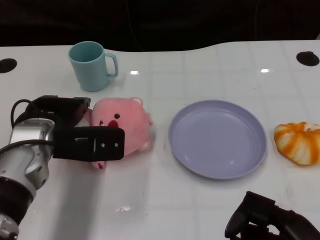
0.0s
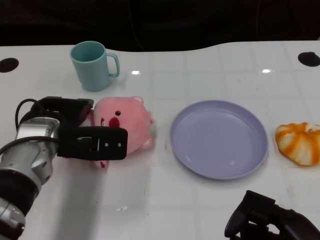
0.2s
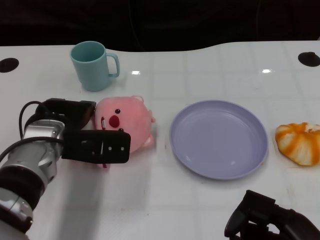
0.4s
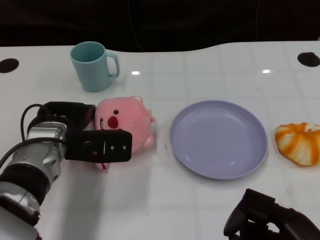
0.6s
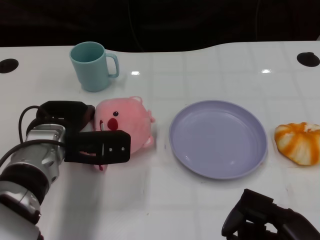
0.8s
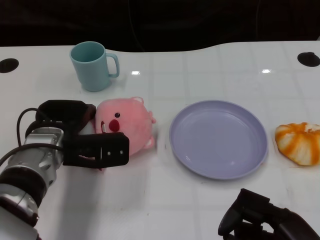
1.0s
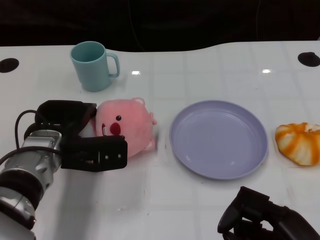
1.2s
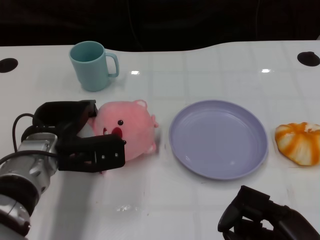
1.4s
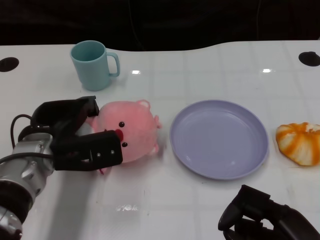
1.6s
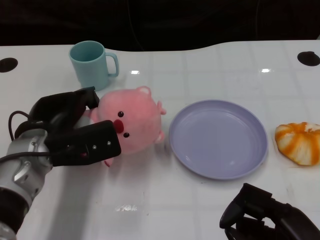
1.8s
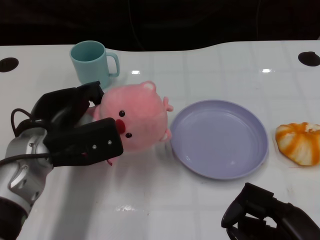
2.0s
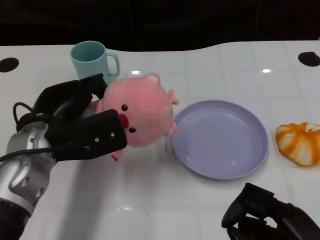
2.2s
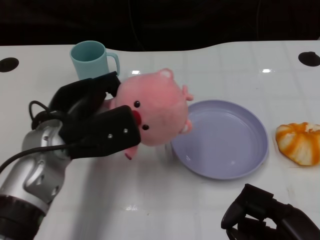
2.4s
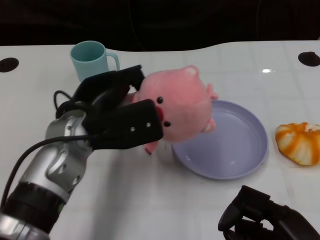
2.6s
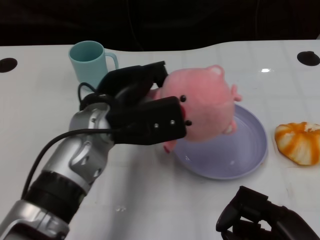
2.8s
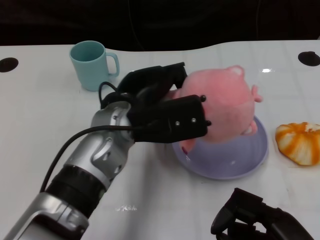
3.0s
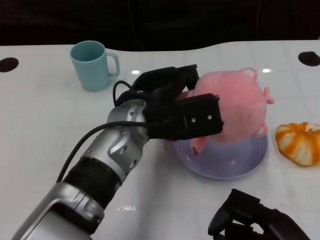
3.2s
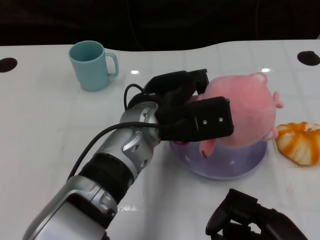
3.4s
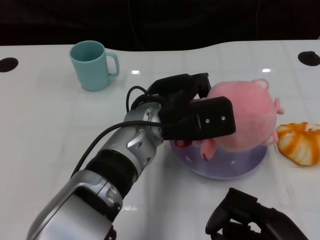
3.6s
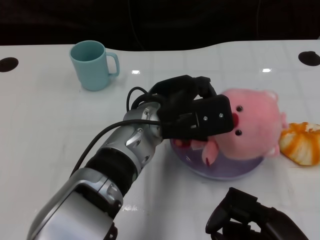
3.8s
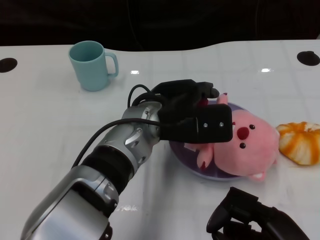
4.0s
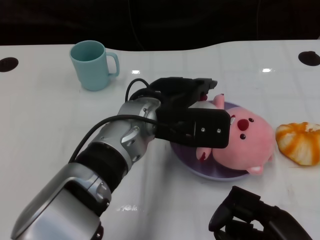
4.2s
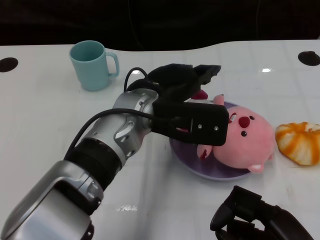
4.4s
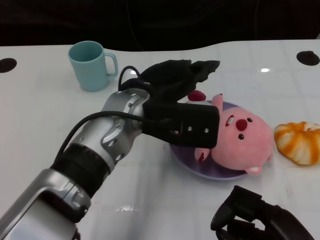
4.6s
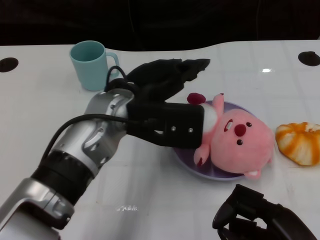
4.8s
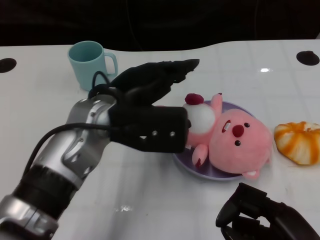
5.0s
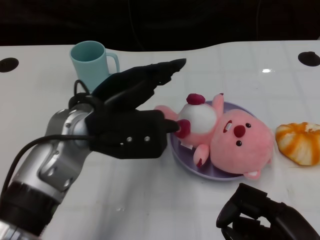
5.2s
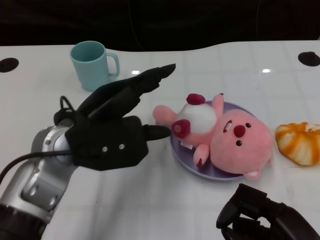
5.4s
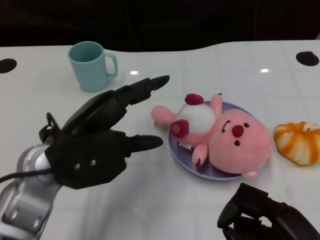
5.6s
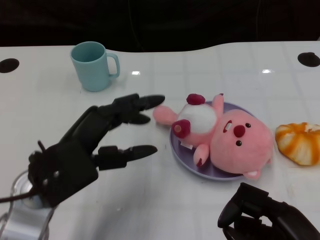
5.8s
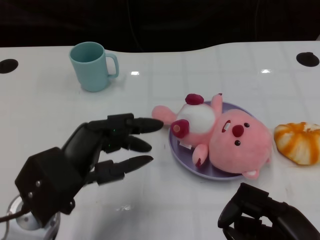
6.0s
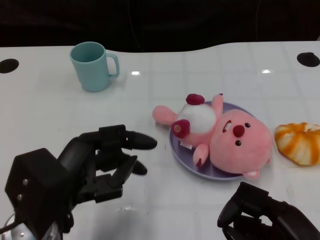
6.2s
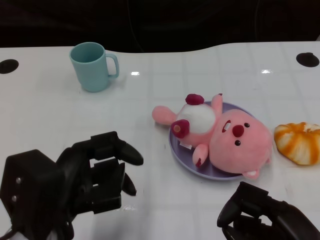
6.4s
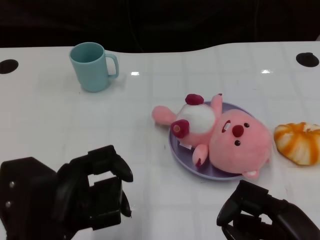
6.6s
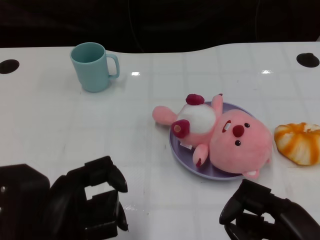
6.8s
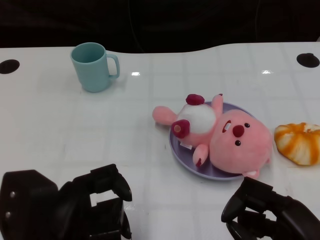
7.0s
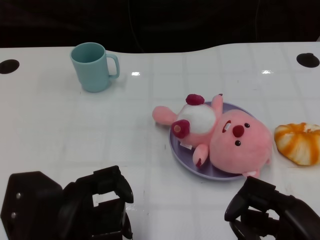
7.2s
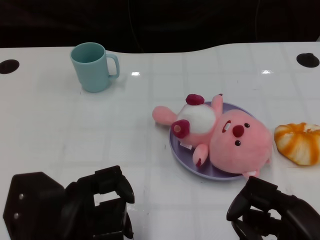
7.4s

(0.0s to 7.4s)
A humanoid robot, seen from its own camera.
Task of the whole recording: Pick up the doll on one side of the plate and place it into the plate.
Step, 2.0s - 4.4s: Place the pink doll into the plate with the left gripper.
0.0s - 1.4s: The hands move only a little.
1.4s - 3.0s: The left hand heads to the right and upward, covering roughly 15 cm.
4.4s - 6.0s: The left hand shifts some 20 cm to the left and backward.
6.0s - 7.4s: The left hand is displaced backward by about 5 cm.

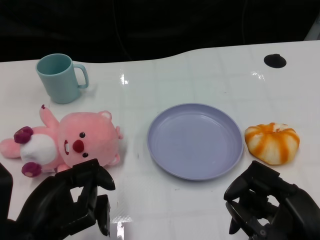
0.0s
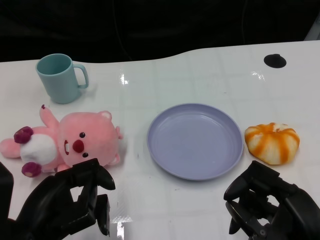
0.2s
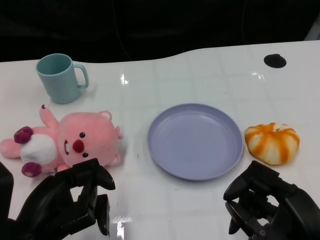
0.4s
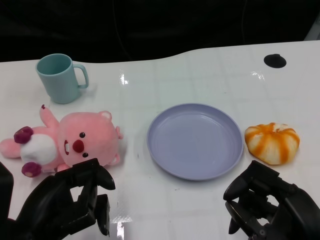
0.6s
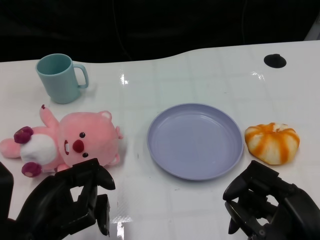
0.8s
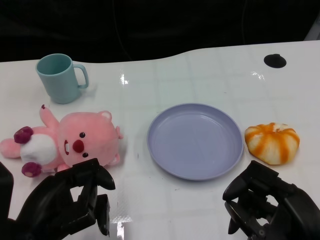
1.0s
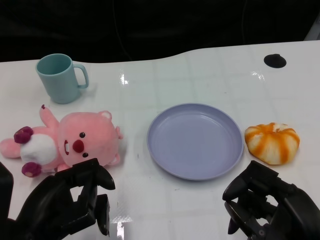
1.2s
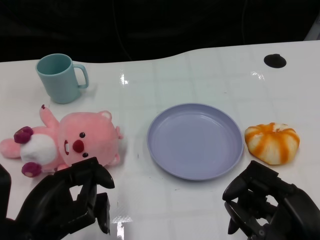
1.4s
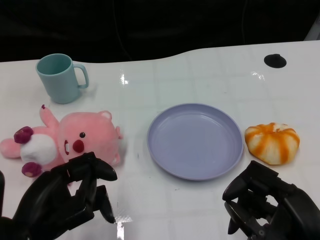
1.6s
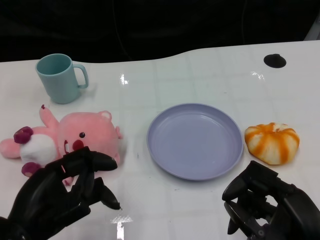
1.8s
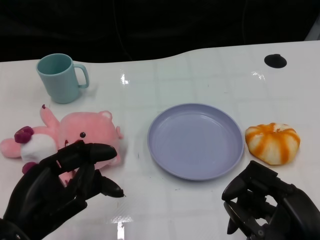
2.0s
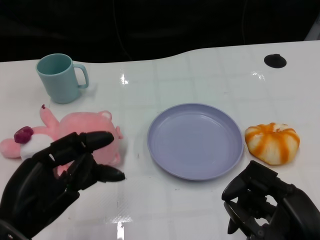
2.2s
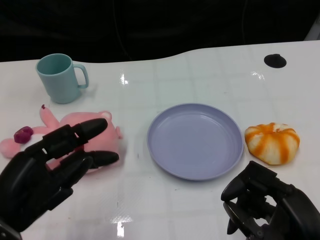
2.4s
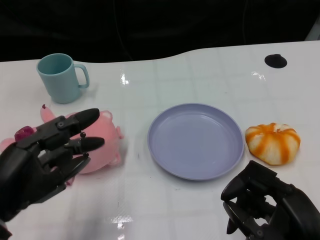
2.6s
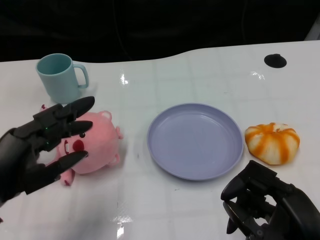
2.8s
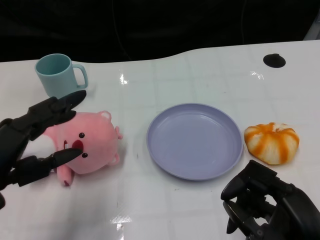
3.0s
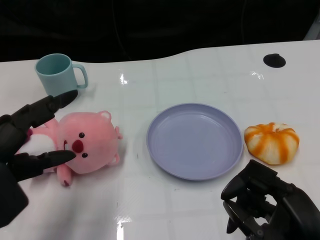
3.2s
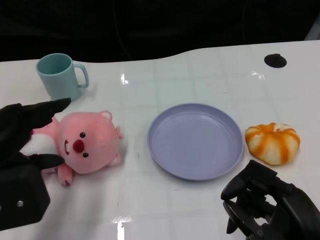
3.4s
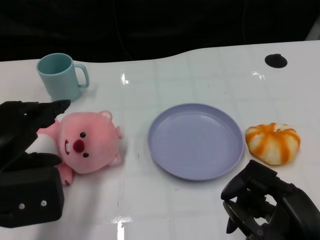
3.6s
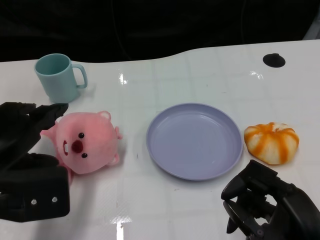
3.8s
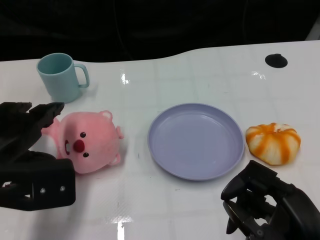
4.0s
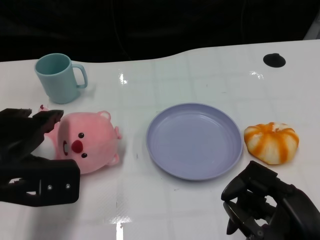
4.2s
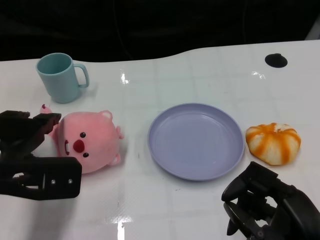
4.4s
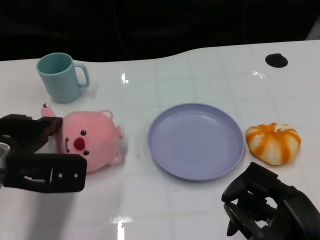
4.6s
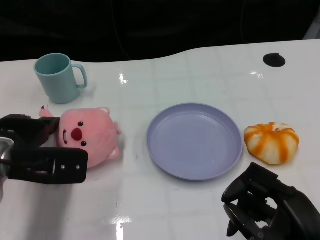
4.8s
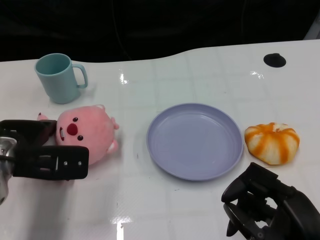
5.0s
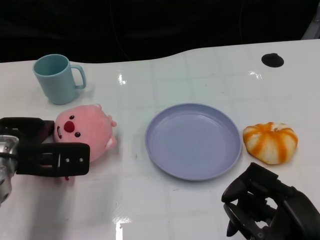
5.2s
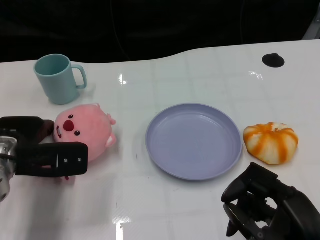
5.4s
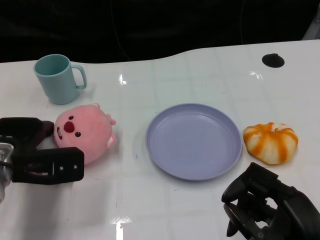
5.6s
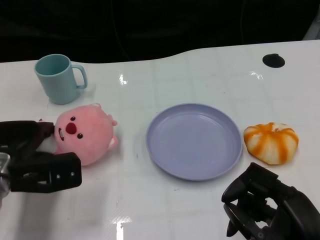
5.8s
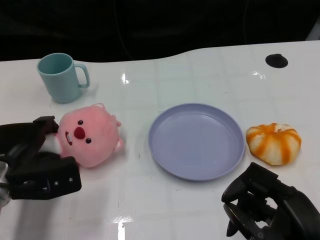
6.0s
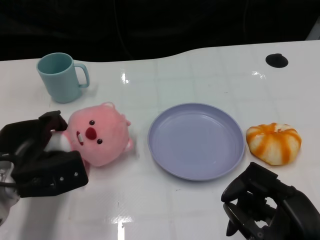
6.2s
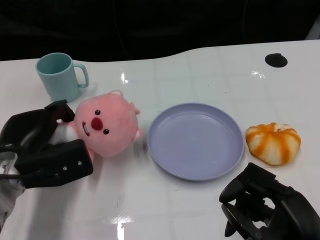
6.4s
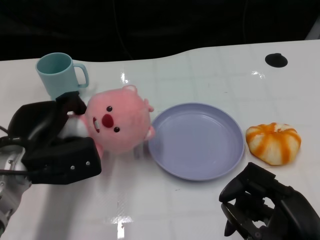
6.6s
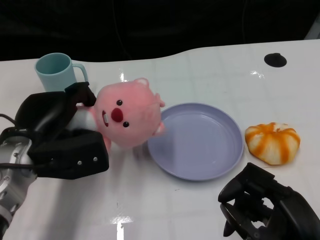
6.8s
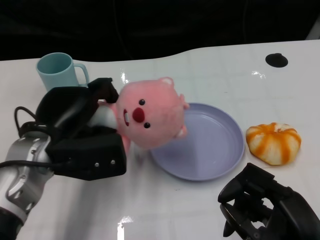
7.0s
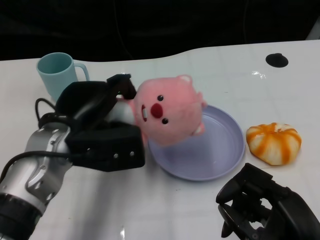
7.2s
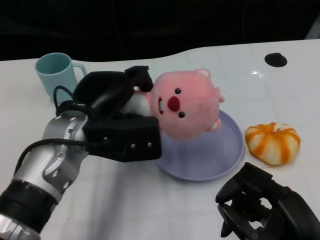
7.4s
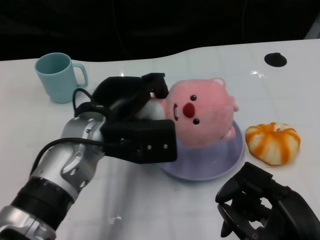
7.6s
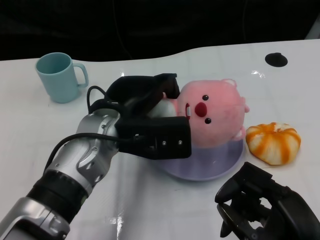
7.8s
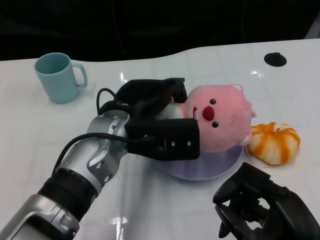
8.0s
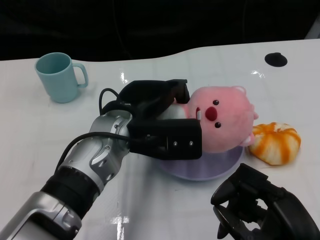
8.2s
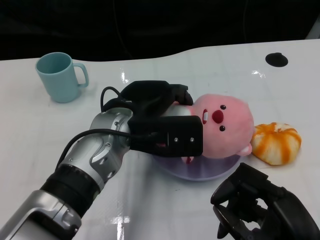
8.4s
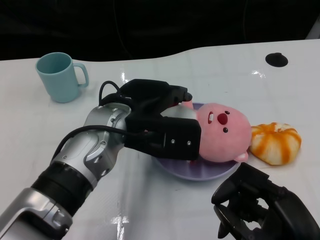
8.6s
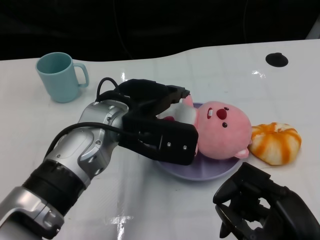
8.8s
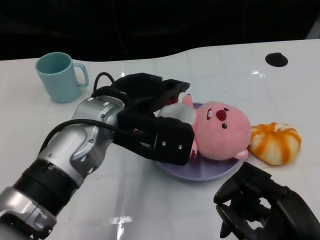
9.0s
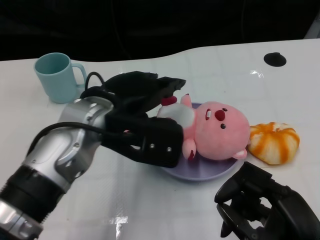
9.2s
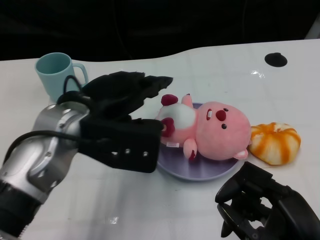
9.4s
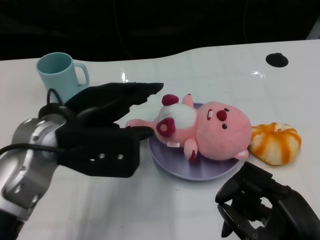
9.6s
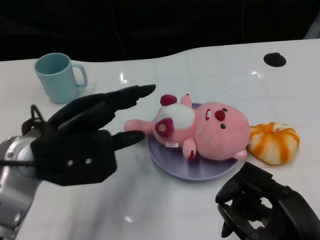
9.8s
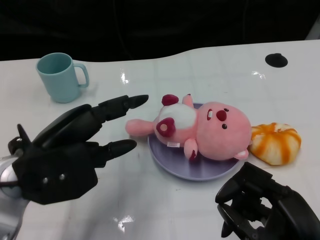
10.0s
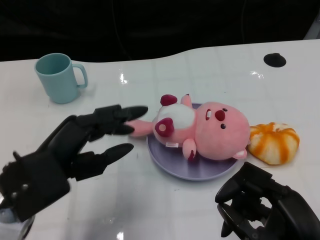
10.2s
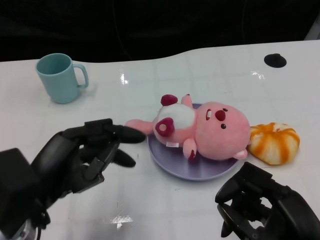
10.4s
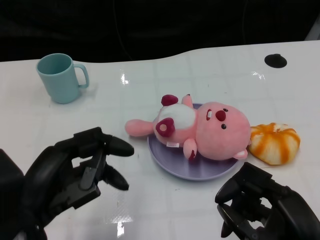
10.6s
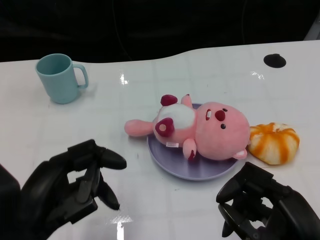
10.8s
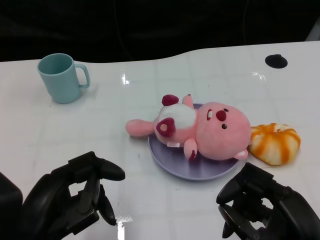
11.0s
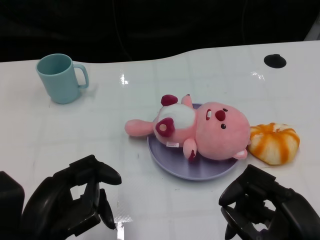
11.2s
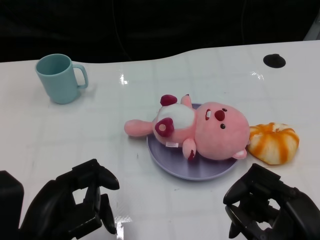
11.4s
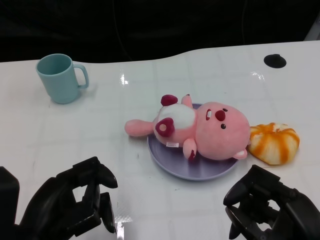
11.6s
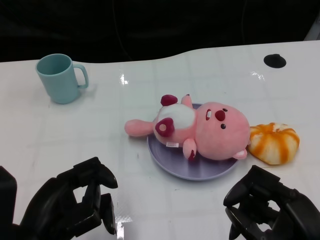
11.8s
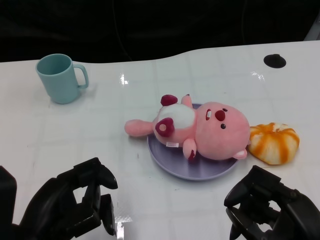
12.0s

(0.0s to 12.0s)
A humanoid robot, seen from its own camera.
Task of the whole recording: Pick up the doll on one side of the plate and place it into the plate.
Step, 1.4s - 6.6s: Grasp the pink doll with the left gripper.
Step, 6.8s - 9.0s: Place the pink doll into the plate with the left gripper.
1.6s - 3.0s: The left hand goes roughly 5 cm upward.
3.0s - 4.4s: The left hand goes about 5 cm forward.
4.4s - 6.0s: The left hand goes approximately 10 cm downward.
6.0s - 7.6s: The left hand shifts about 15 cm to the right and upward.
9.0s - 10.4s: The left hand shifts about 15 cm to the left and backward.

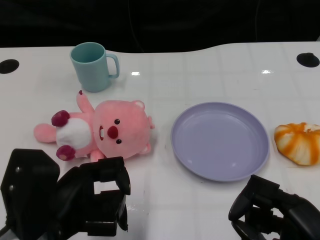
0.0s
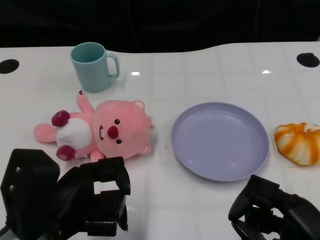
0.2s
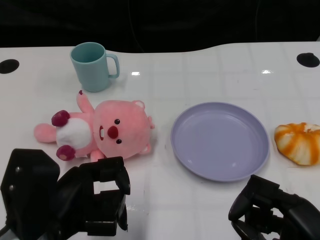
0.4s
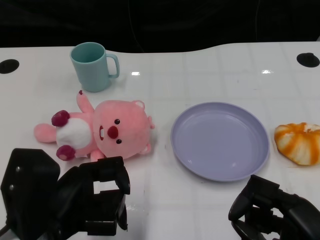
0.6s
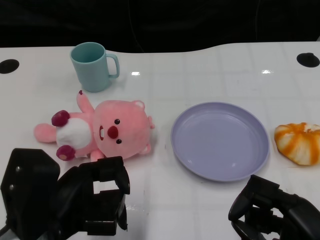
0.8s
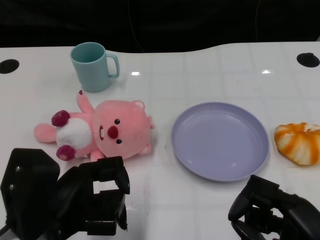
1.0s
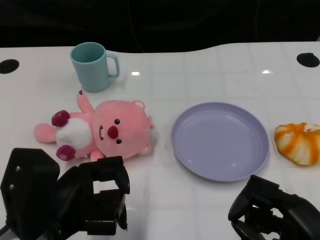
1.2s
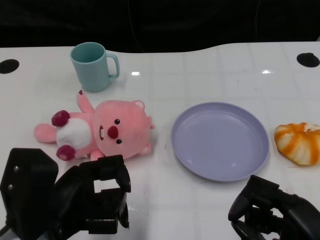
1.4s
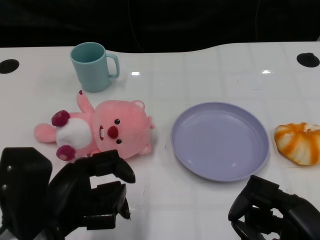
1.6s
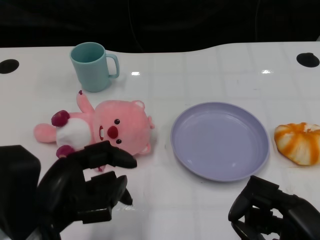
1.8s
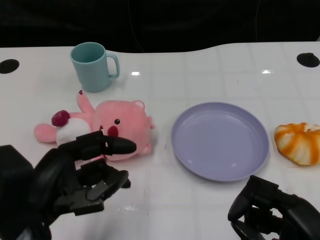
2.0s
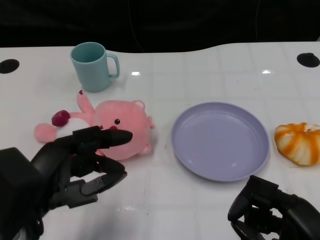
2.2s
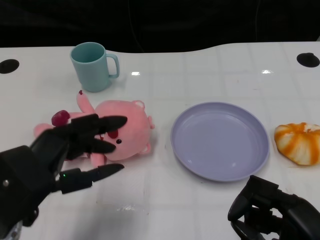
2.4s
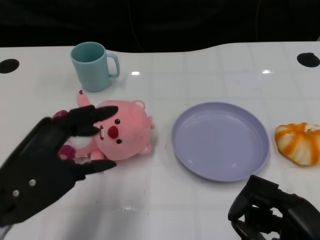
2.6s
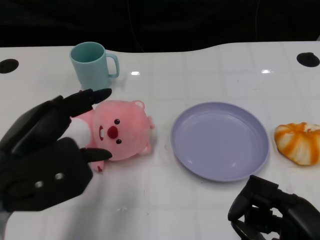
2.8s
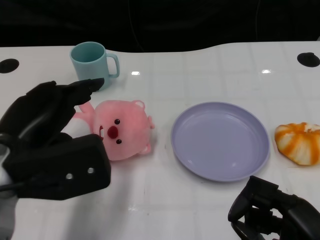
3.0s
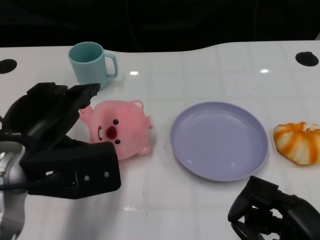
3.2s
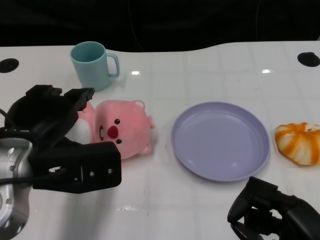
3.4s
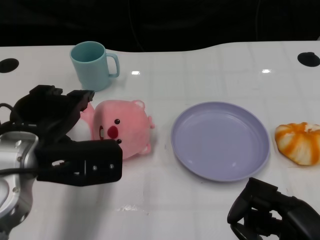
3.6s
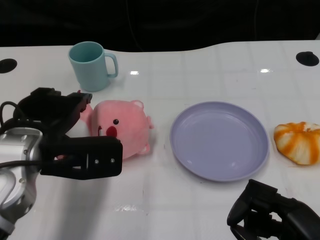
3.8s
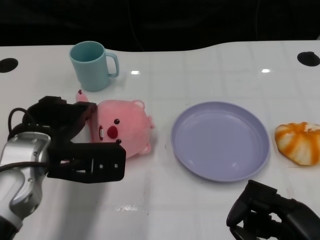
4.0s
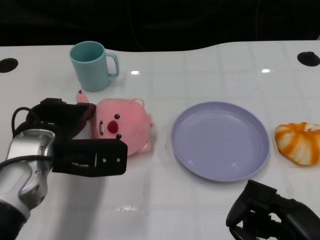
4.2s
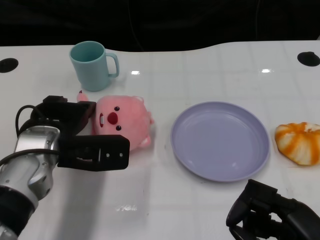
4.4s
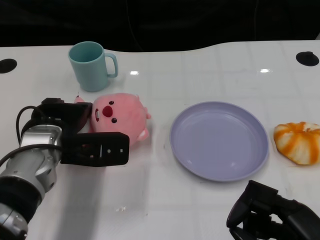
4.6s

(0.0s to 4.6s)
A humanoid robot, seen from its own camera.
Task of the whole recording: Pick up the doll on one side of the plate and place it into the plate.
1.6s - 3.0s: The left hand shifts some 5 cm upward.
3.0s - 4.6s: The left hand is displaced forward and downward by roughly 15 cm.
